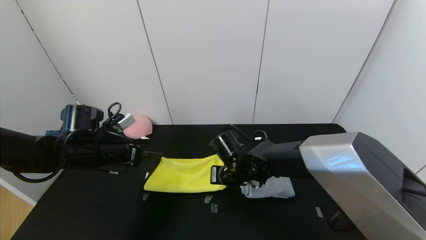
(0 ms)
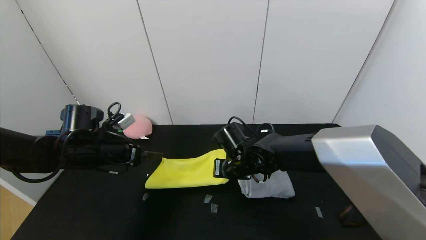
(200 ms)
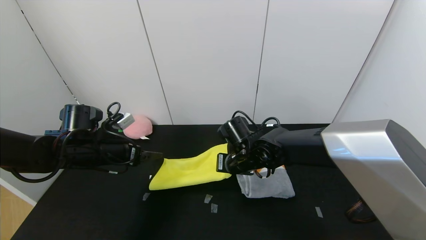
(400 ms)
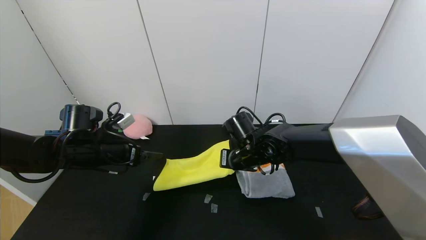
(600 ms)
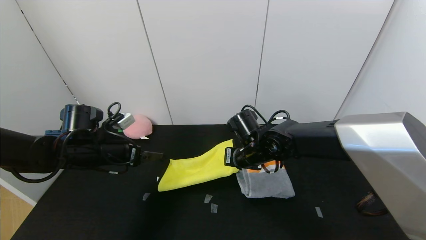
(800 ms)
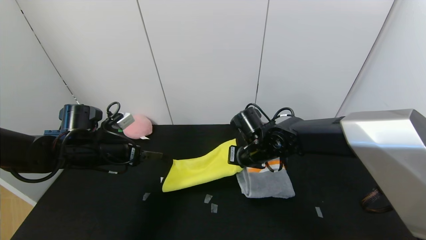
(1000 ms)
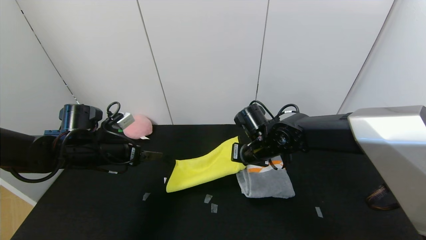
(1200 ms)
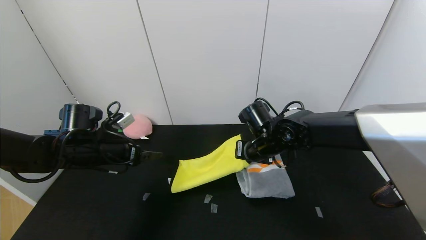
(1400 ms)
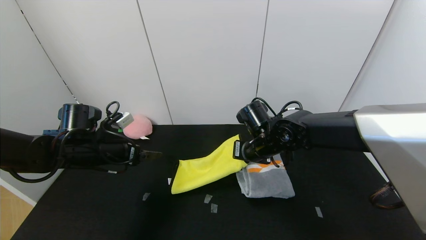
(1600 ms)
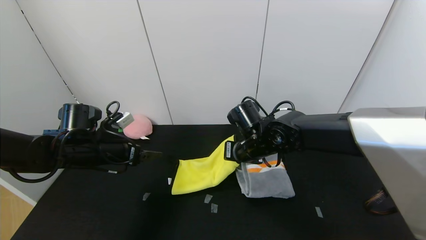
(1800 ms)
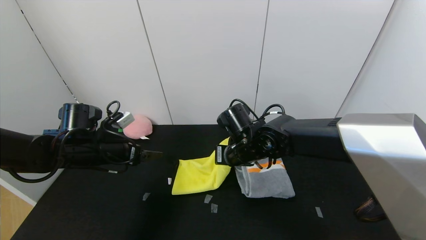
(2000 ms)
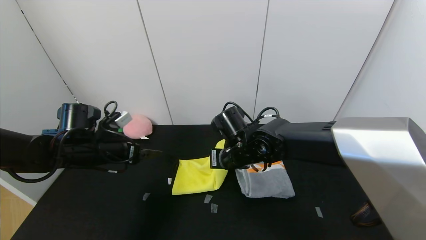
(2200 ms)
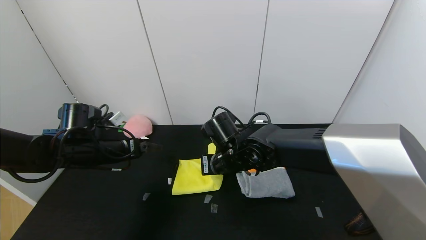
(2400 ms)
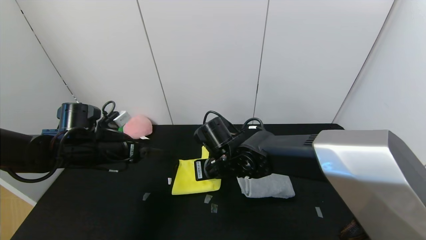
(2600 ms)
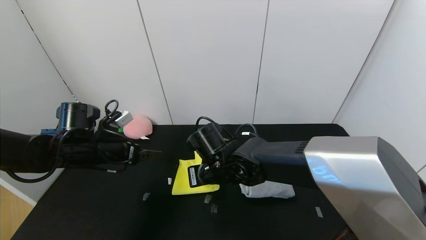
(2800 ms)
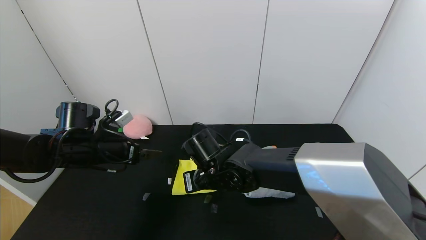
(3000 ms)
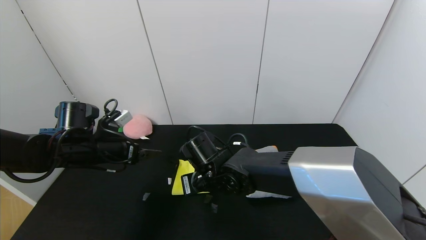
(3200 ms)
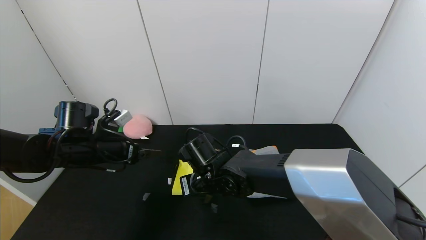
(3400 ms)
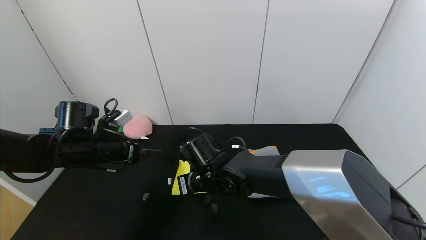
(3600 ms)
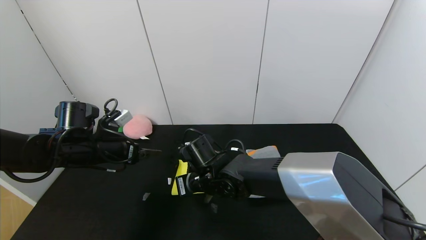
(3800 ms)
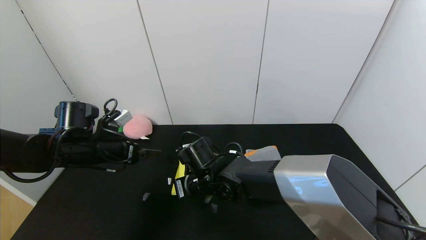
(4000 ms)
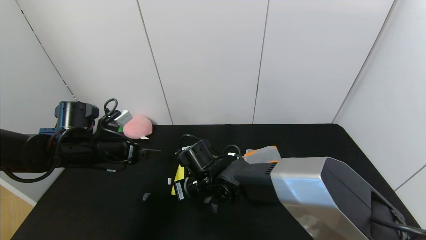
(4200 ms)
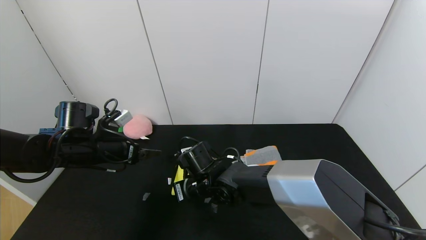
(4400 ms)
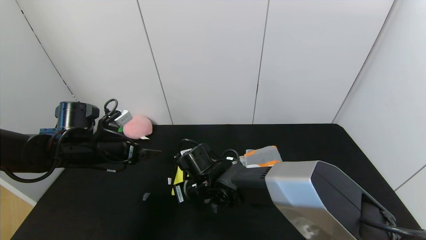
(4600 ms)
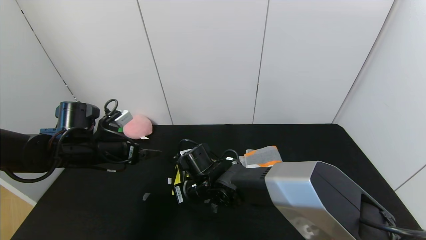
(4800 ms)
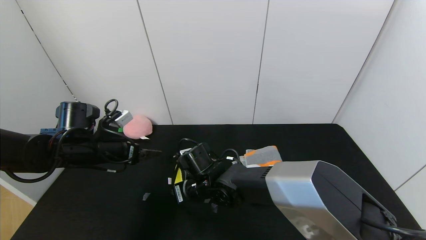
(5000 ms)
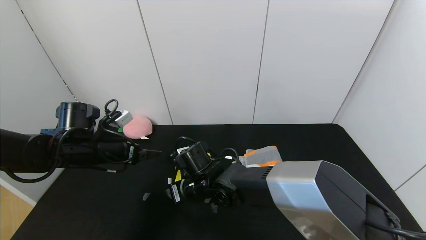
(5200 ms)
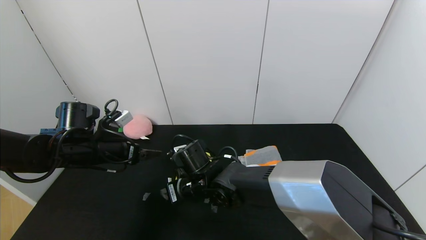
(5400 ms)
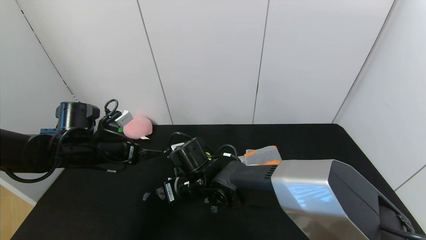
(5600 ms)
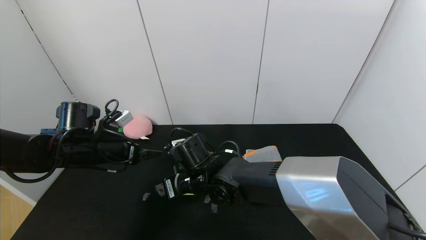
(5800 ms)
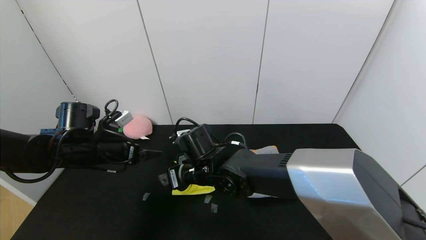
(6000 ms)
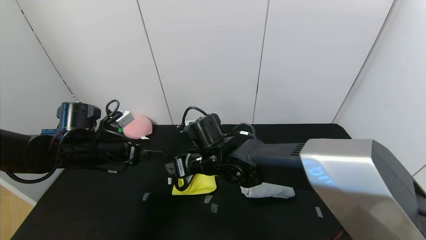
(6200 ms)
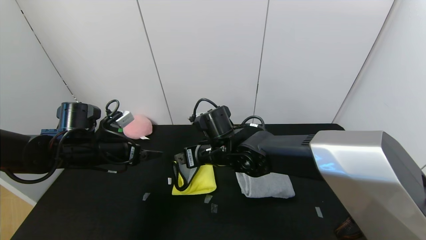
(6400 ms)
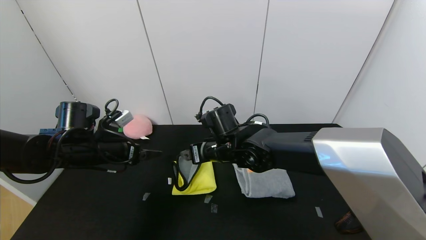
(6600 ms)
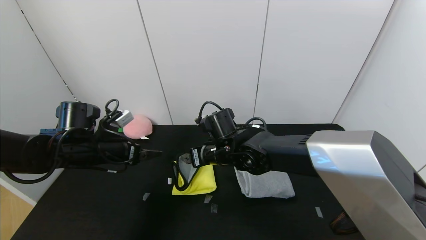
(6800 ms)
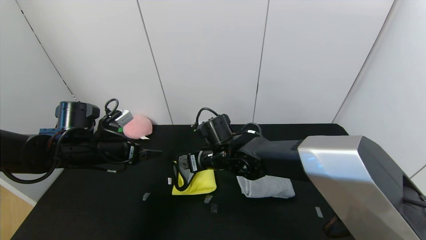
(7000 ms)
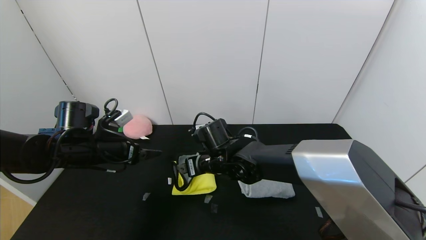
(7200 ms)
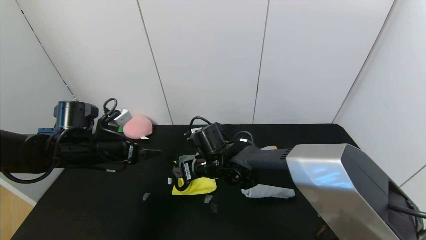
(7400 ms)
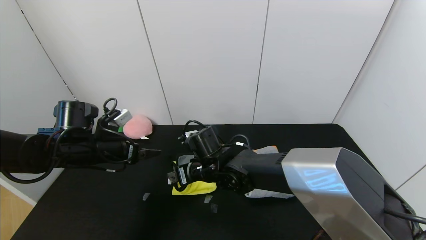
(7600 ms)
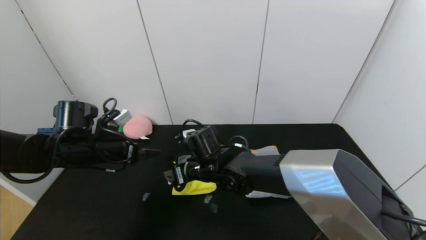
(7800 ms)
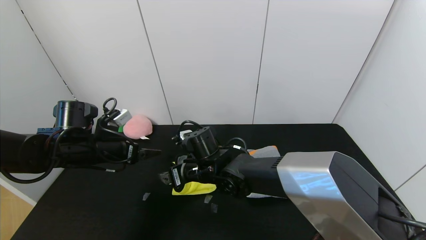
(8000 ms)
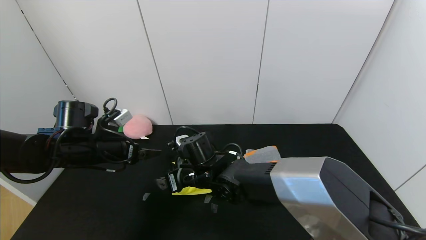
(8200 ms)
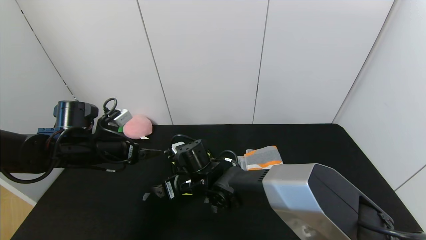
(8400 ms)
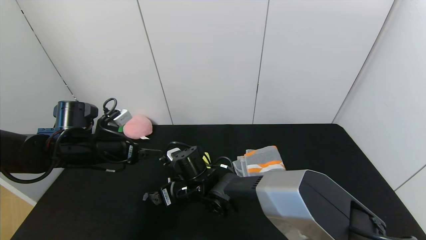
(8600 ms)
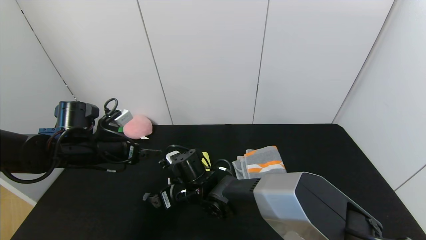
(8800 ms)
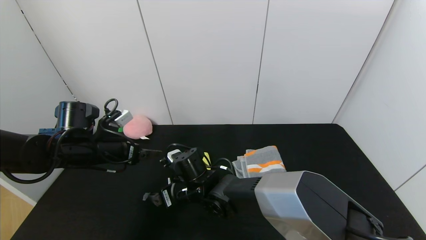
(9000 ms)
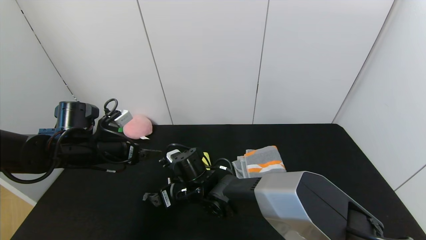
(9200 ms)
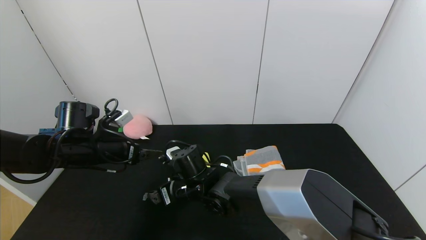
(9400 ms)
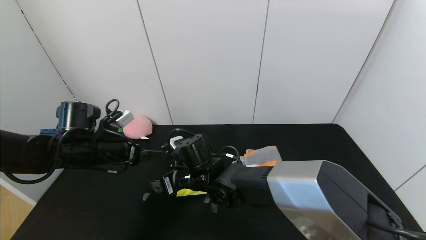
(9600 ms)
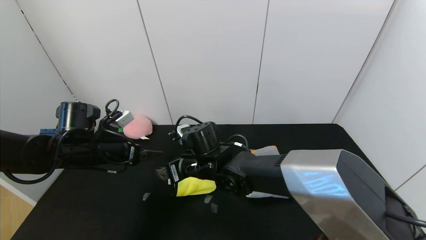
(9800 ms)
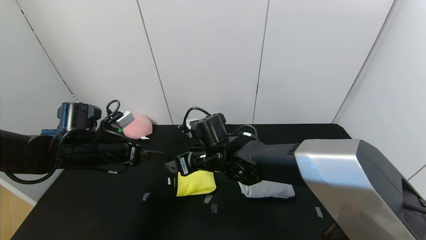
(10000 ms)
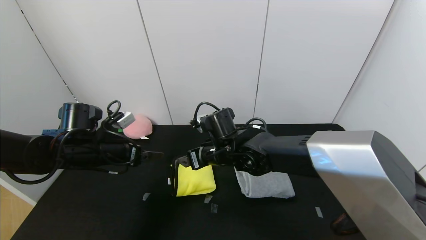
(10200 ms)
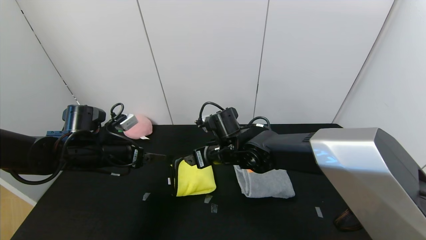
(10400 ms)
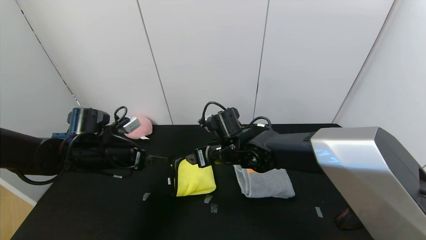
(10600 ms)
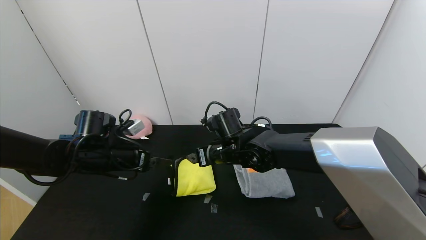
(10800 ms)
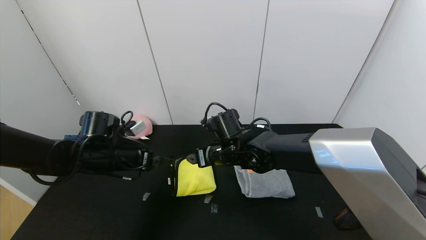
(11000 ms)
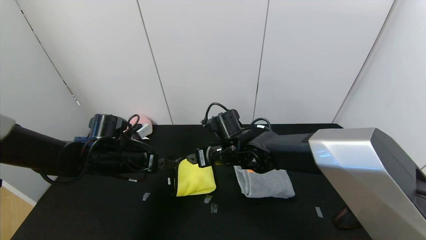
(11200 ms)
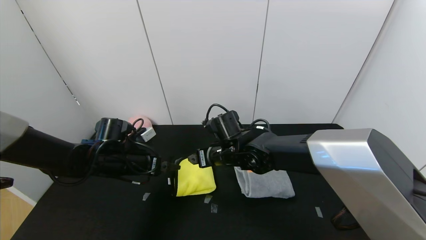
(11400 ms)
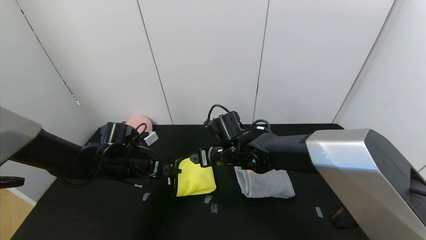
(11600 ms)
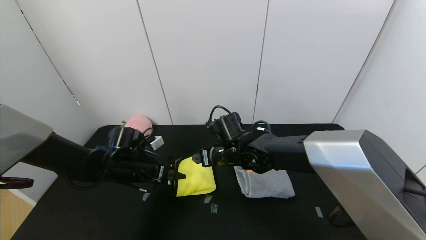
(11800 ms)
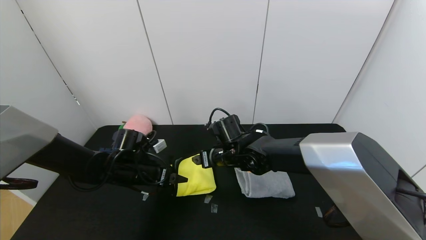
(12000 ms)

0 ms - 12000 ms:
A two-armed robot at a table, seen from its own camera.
Task of the whole recording: Use the gripper to fold the yellow towel and grey towel in half twice,then put the yellow towel on the grey towel.
Step, 0 ms - 9400 ms: Fold the yellow towel from right to left with right gripper.
0 ms - 1600 ms: The right gripper moves upward and to the right, some 10 cm.
1600 ms - 3000 ms: The right gripper moves to the left and backward, roughly 15 cm.
3000 ms - 4400 ms: The right gripper changes place by some 5 cm.
4400 ms - 6000 ms: The right gripper travels upward by about 5 cm, and opens.
6000 ms - 7600 ms: The grippers stay close to where they were, moving slightly.
7600 ms - 9000 ms: The right gripper moves some 5 cm.
9000 ms - 10400 ms: The right gripper travels to the right and upward by some 10 cm.
10400 ms - 12000 ms: The left gripper goes some 5 cm downward.

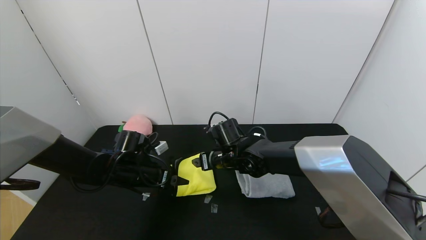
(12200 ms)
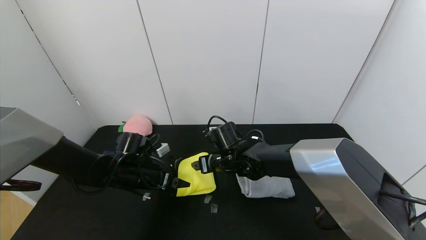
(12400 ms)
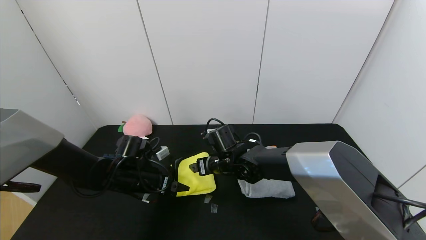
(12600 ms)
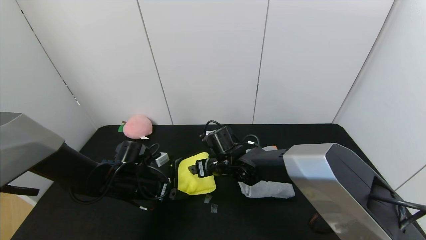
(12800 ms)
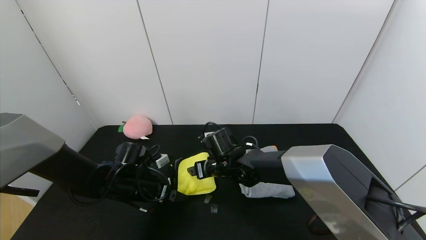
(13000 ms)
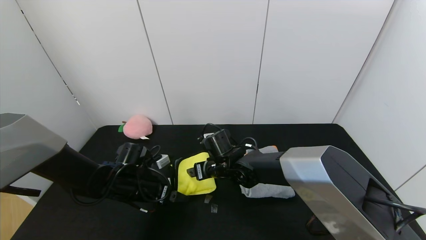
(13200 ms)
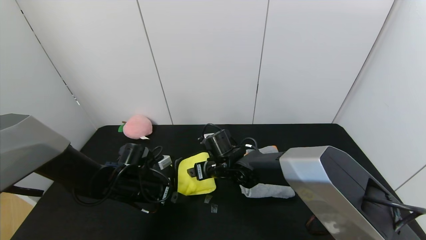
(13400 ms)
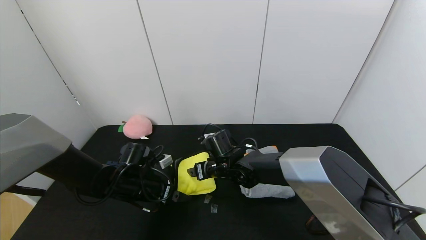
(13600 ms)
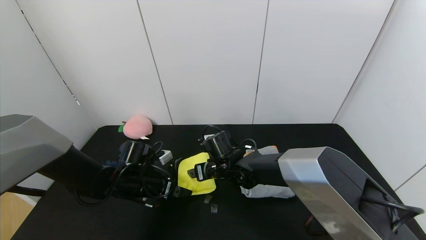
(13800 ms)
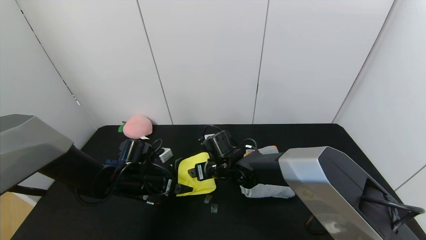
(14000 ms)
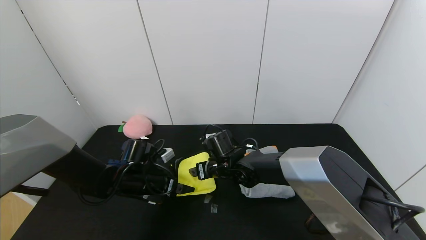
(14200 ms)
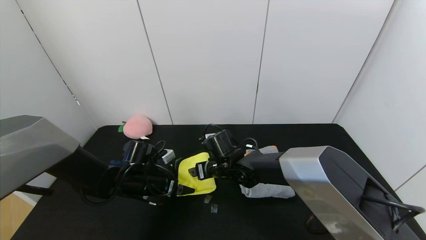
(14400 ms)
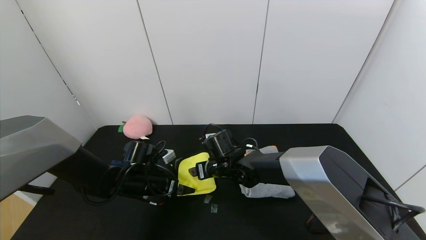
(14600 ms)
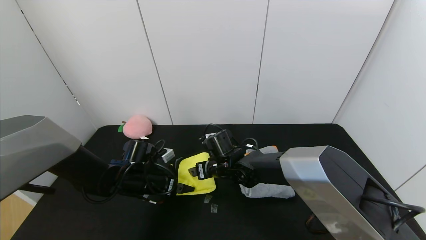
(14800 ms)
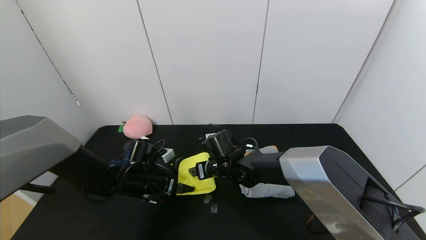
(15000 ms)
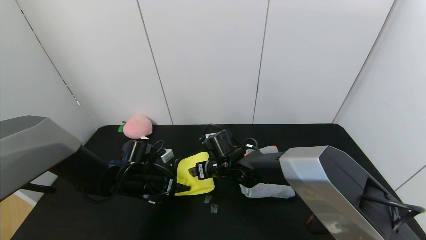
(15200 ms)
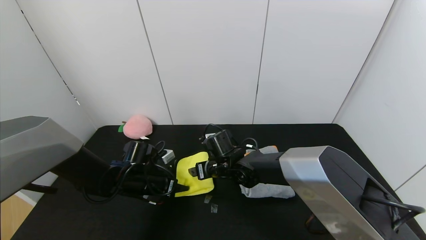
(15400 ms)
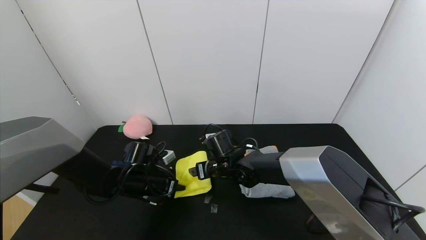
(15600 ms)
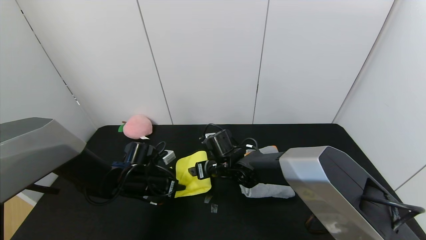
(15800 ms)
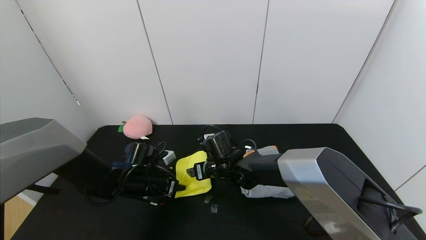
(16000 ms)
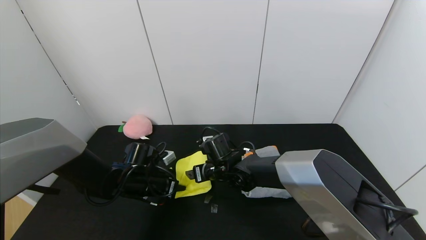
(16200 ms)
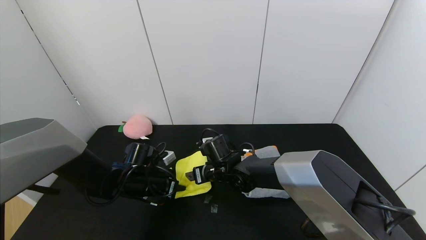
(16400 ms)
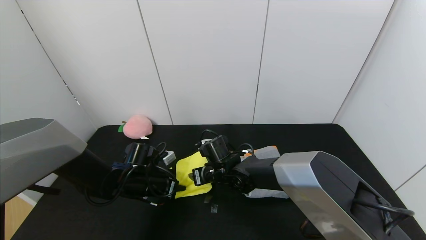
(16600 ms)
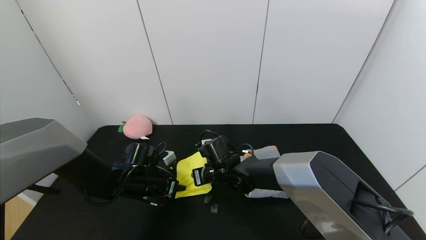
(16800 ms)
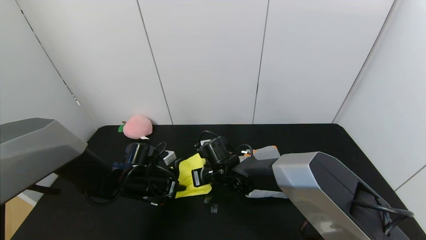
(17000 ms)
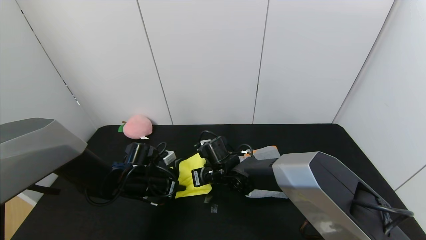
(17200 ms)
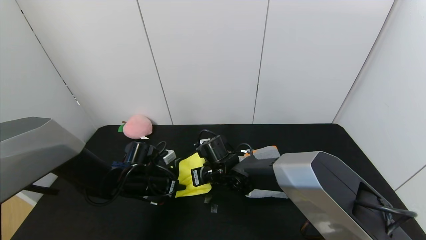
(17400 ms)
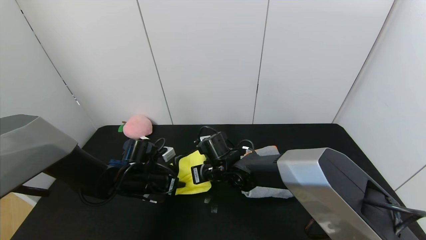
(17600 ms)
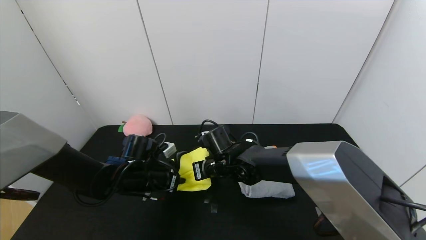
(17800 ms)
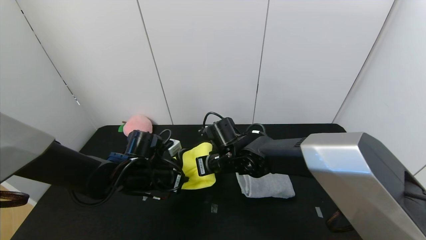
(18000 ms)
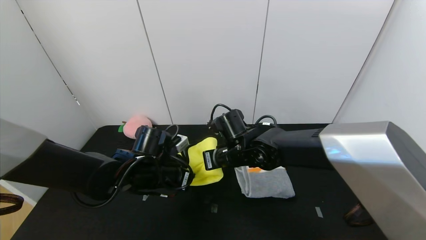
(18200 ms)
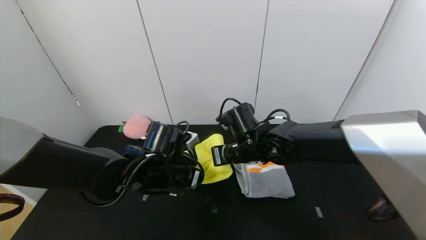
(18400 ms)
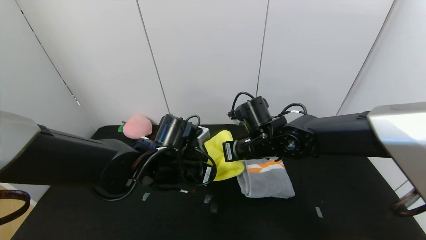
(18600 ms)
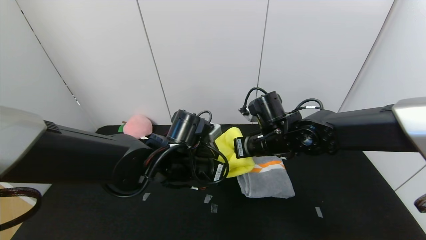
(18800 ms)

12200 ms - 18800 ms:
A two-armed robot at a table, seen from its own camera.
Task of the whole recording: Use the gripper to fold the yellow towel and grey towel in half twice,then put the yellow towel on the grey towel.
12200 ms - 13800 ms: The grippers make only small movements.
13800 ms - 15400 ms: The left gripper closes up.
15400 ms - 17200 ms: The left gripper closes; the right gripper closes its fingers.
17200 ms - 18800 ms: The right gripper is displaced to the right and upward by approximately 20 cm. The left gripper moves to the right, upward and backward, about 20 cm.
